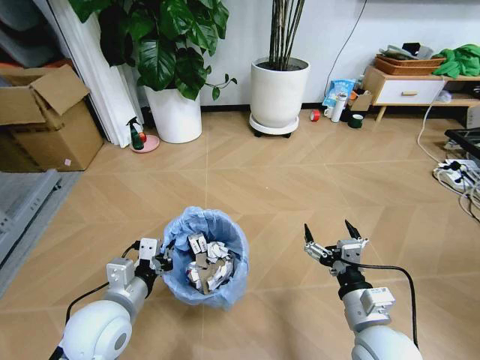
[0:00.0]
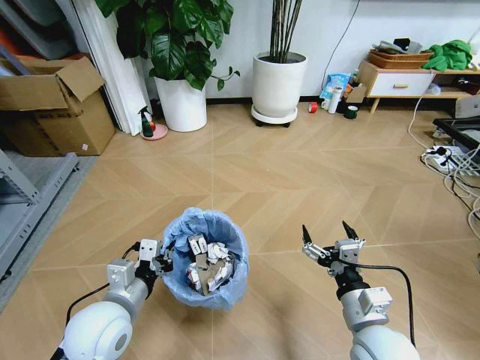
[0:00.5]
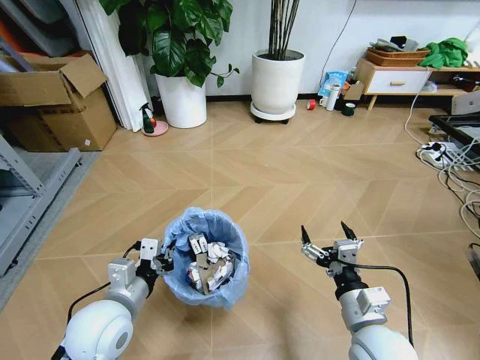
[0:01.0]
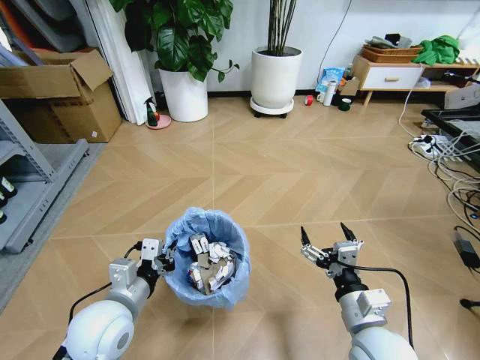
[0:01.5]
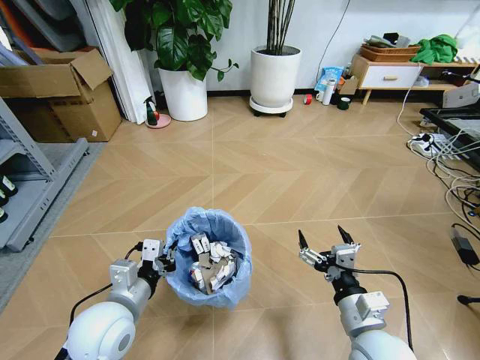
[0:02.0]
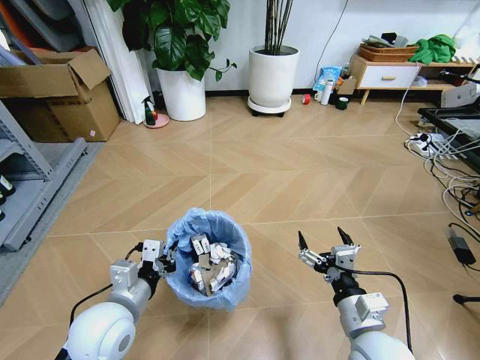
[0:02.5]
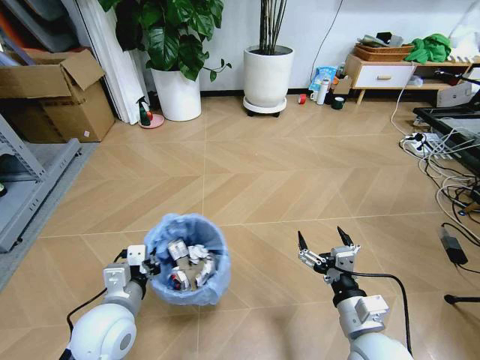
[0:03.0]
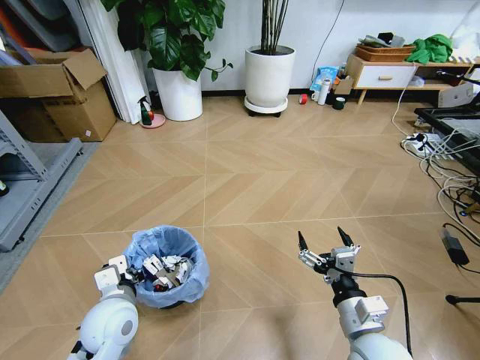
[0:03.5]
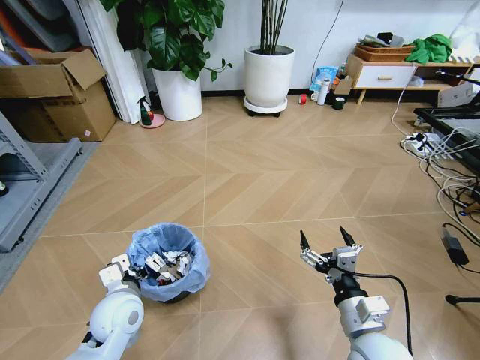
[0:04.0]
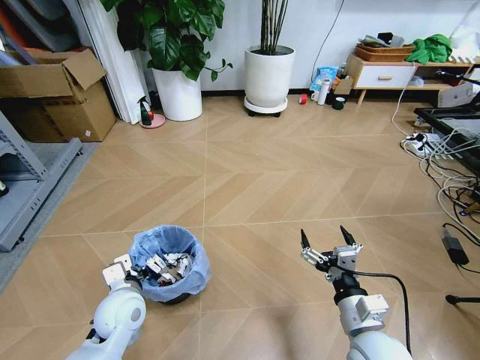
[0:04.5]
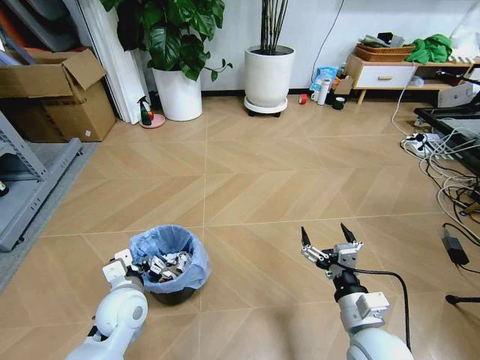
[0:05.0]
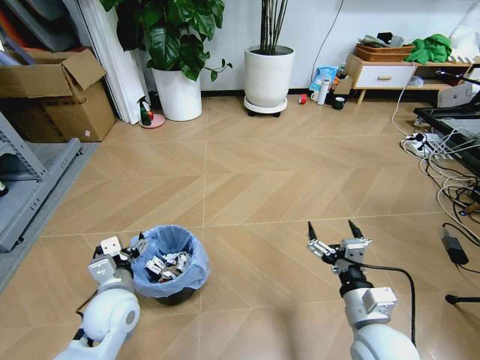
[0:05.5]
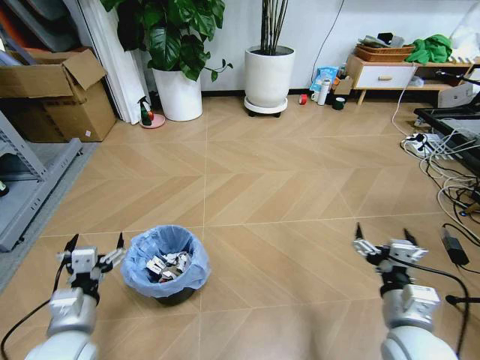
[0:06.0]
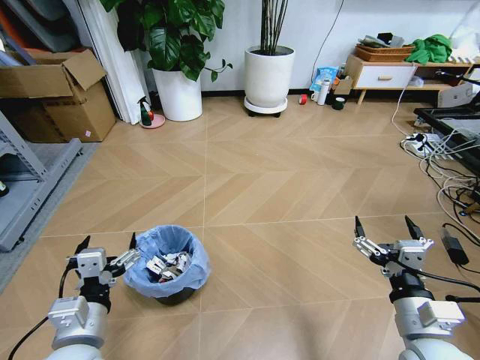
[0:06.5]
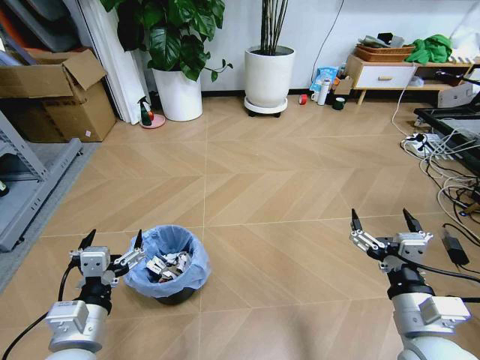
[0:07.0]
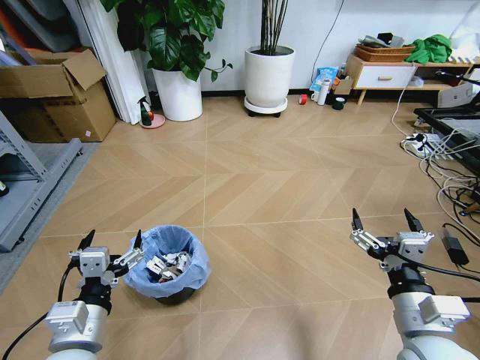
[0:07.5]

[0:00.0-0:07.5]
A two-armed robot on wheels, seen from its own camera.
Task of the whole recording: Pick up the trash bin and place the garbage on the floor into it.
0:02.0 to 0:04.0: The left gripper goes about 5 cm downward.
0:04.0 to 0:05.5: The left gripper opens.
0:05.5 to 0:07.5: The left gripper is displaced backward and upward by approximately 15 cm. Meanwhile the right gripper is displaced upward by about 5 cm.

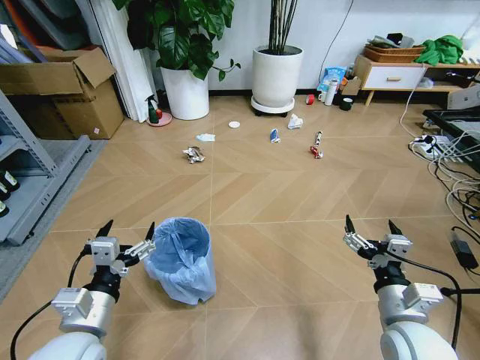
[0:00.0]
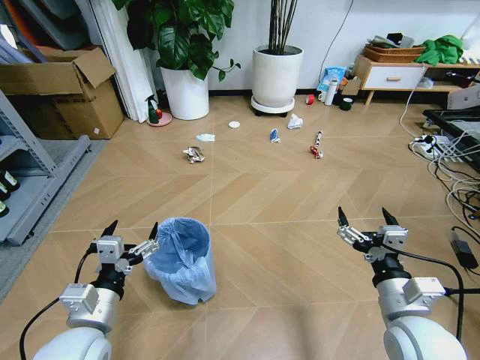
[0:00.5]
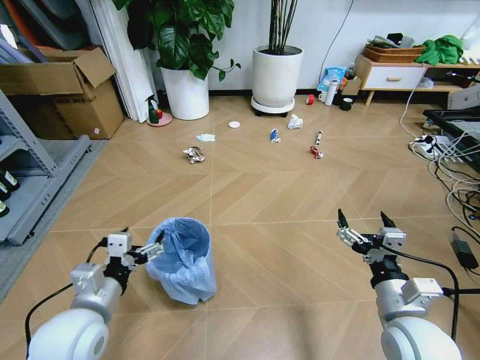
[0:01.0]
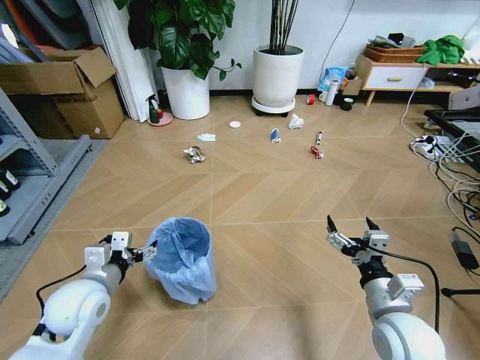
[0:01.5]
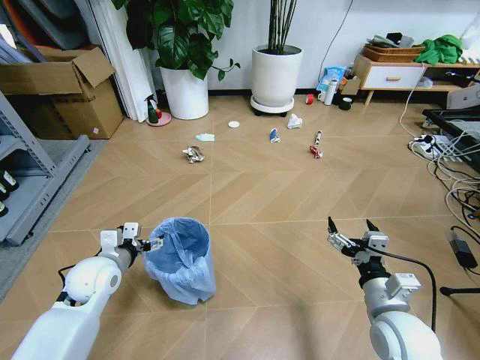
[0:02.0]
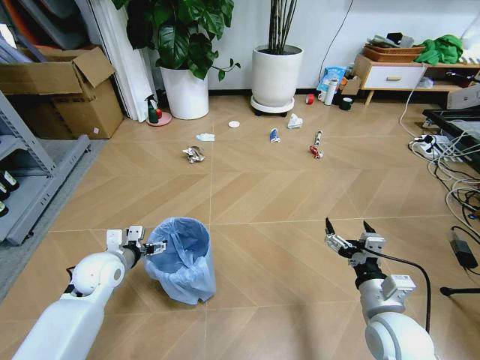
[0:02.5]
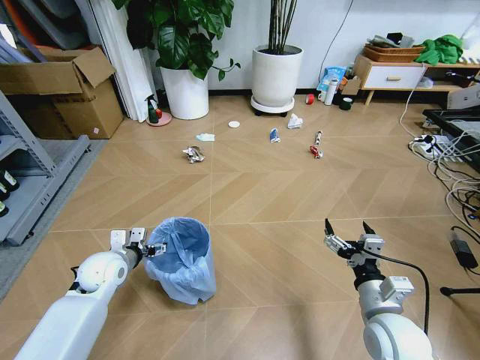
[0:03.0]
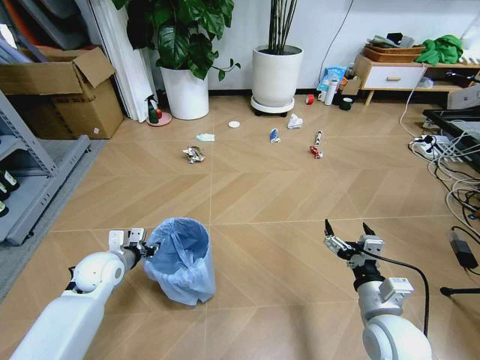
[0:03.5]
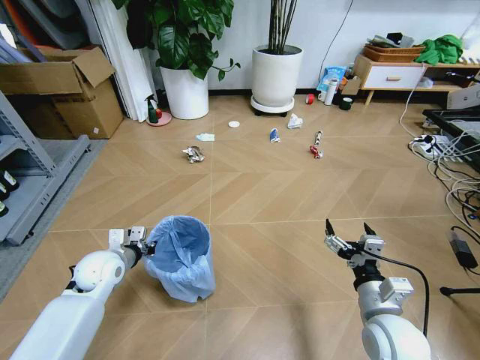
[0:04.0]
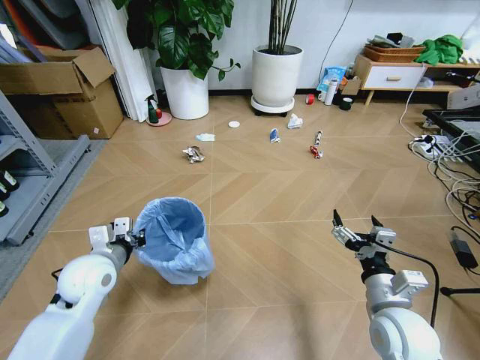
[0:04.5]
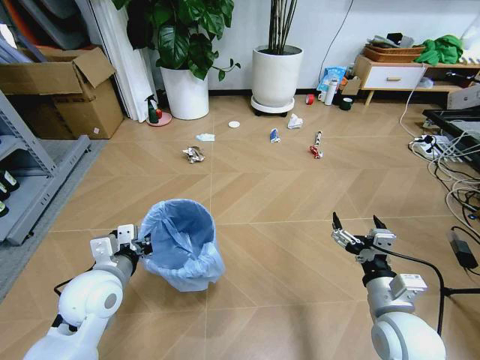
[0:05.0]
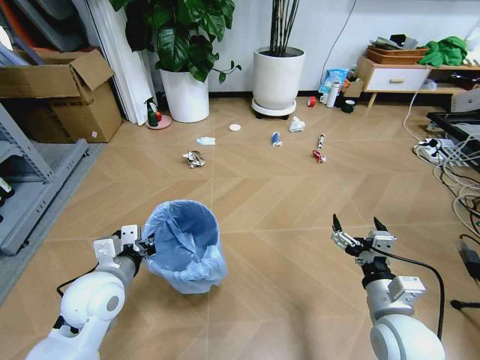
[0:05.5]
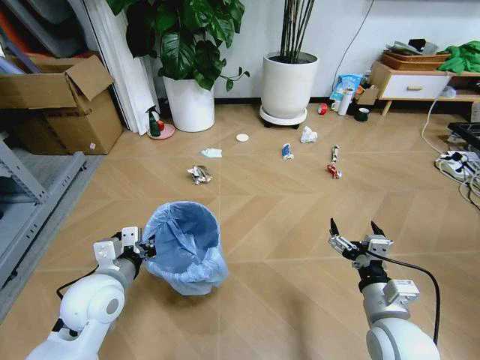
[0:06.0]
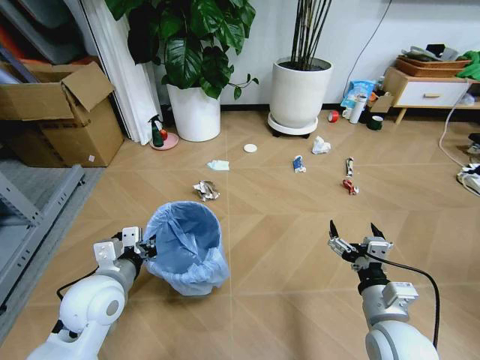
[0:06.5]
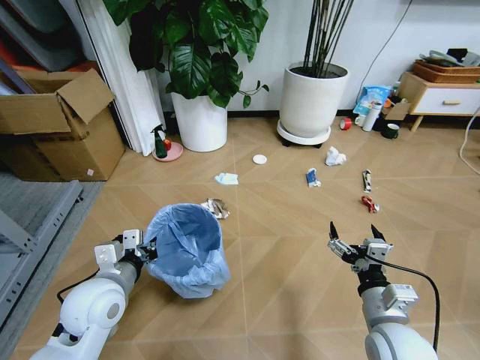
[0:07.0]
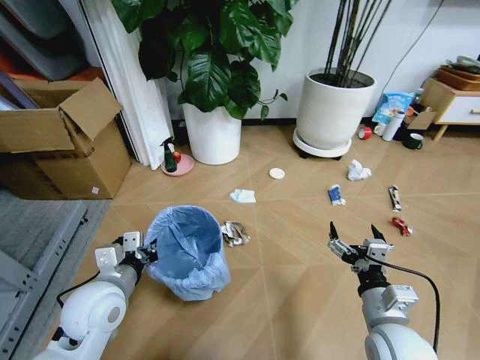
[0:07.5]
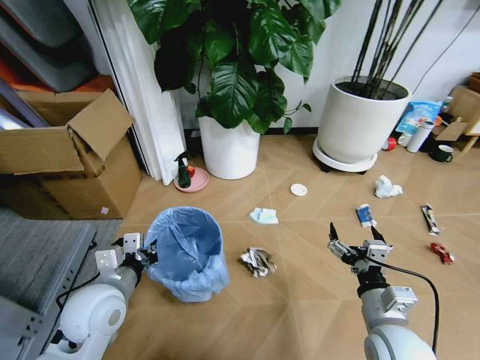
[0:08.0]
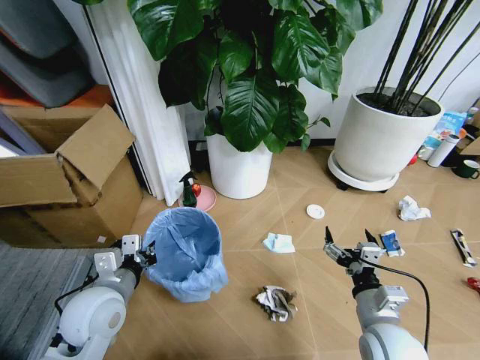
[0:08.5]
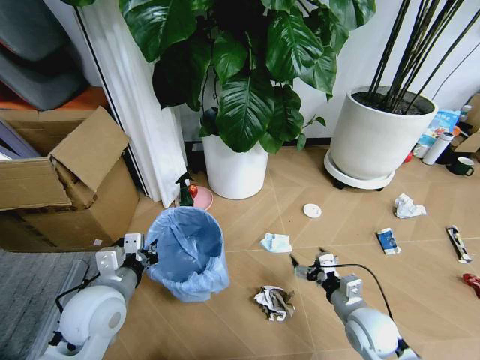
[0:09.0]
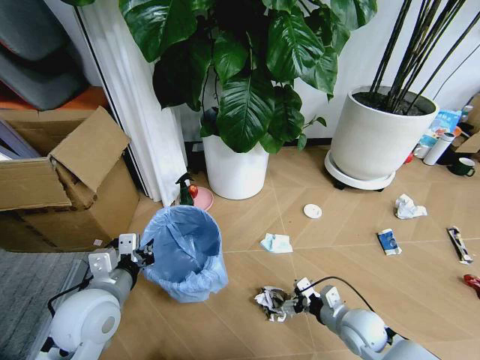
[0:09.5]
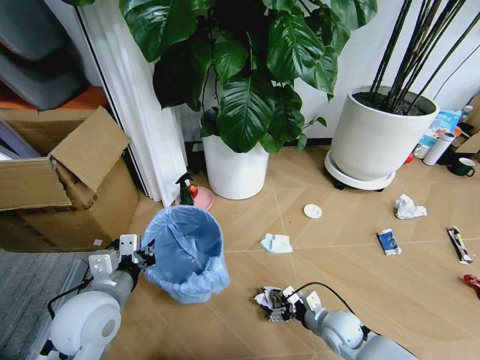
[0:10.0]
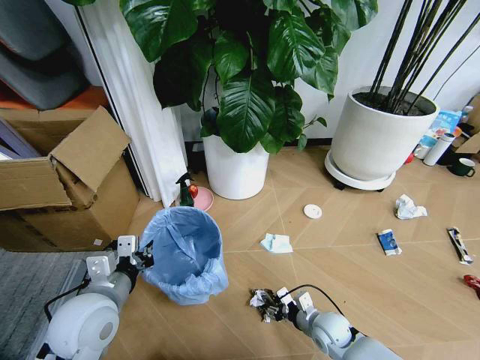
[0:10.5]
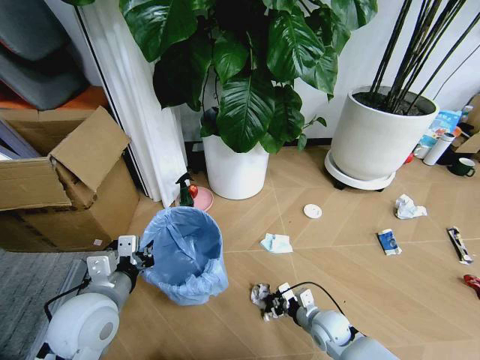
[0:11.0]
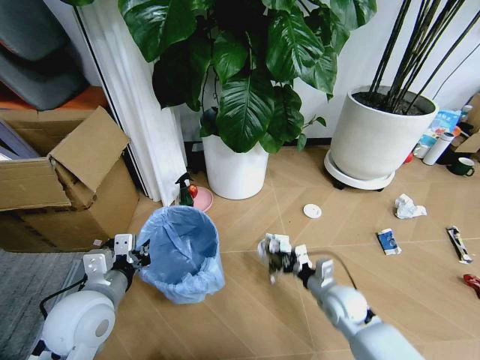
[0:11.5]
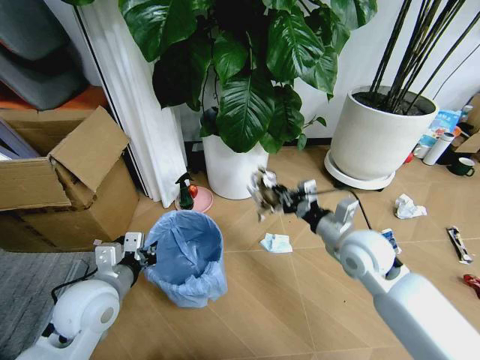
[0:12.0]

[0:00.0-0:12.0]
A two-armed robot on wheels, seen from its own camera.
Task of the whole recording: Pick up the trash bin and place the garbage on the floor into it.
0:02.0 to 0:04.0: The left gripper moves approximately 5 cm, and closes up.
0:04.0 to 0:06.0: The left gripper heads backward, upward and to the right, covering about 15 cm.
0:08.0 to 0:10.0: The right gripper heads downward and forward, covering roughly 20 cm.
0:10.0 to 0:12.0: The right gripper heads upward, covering about 25 cm, and closes up.

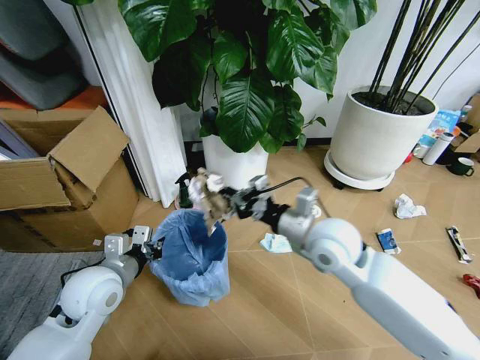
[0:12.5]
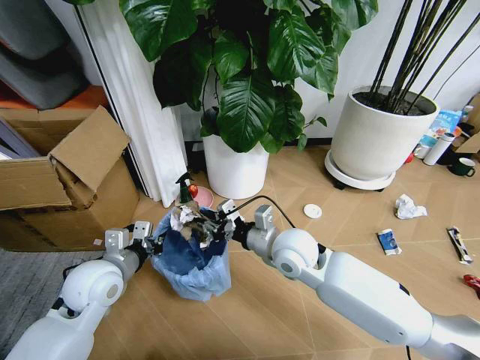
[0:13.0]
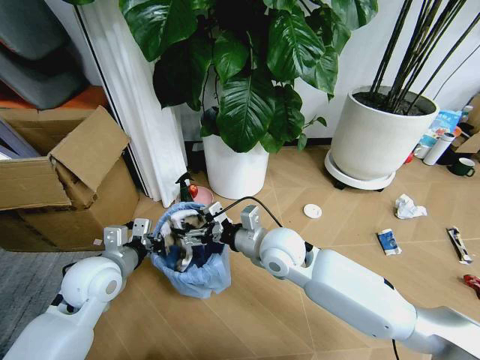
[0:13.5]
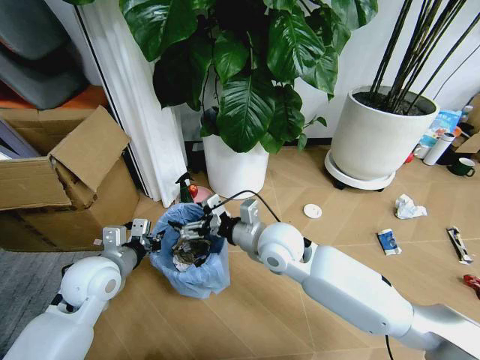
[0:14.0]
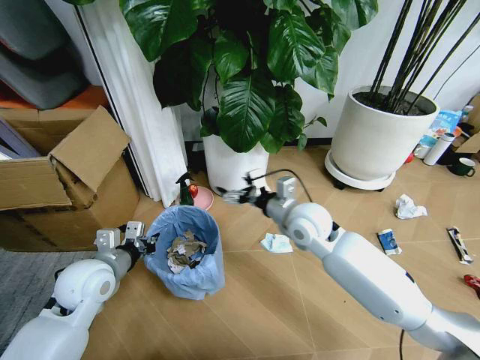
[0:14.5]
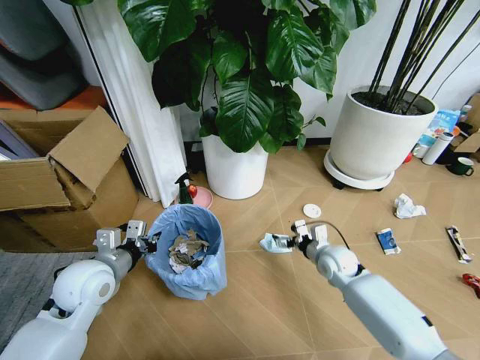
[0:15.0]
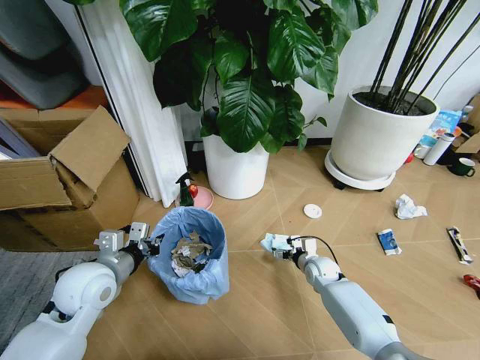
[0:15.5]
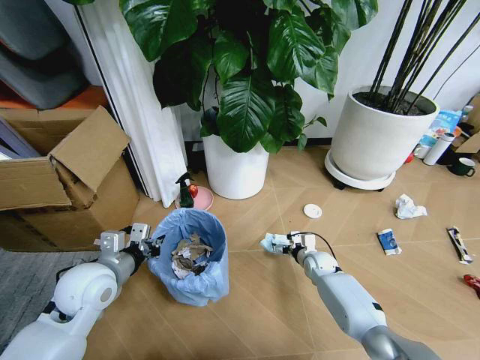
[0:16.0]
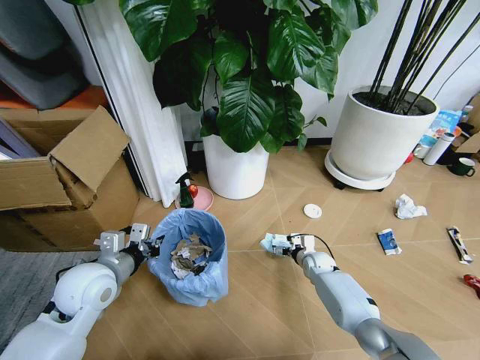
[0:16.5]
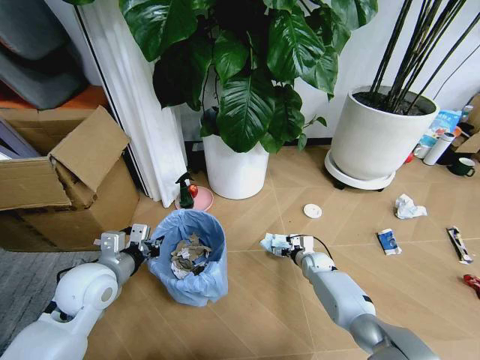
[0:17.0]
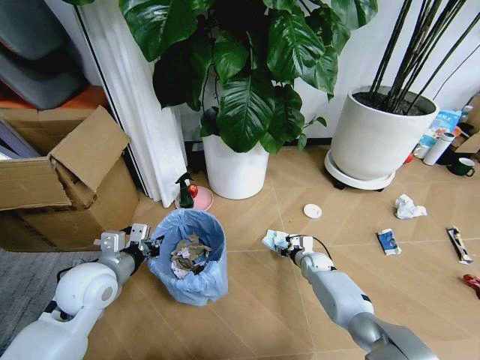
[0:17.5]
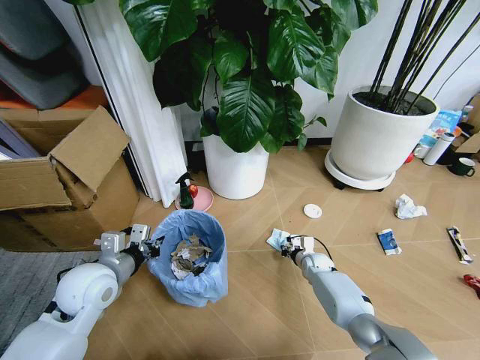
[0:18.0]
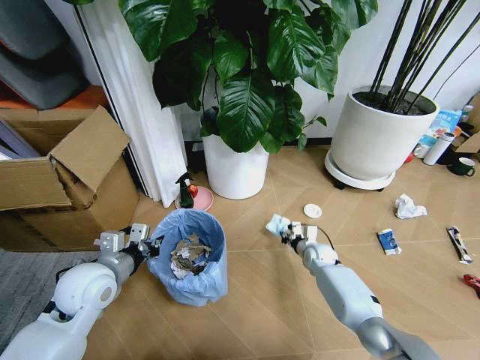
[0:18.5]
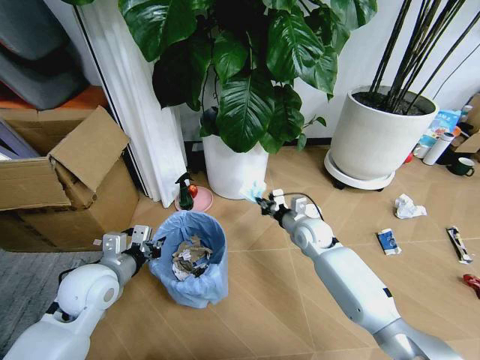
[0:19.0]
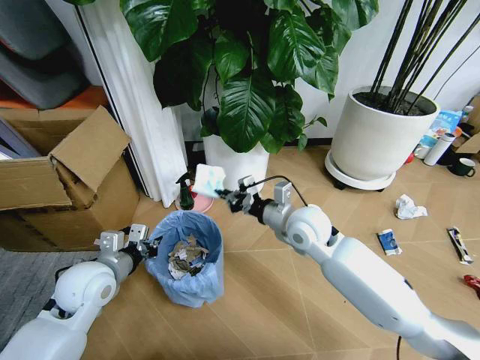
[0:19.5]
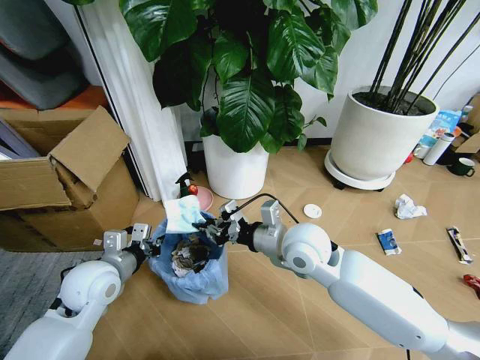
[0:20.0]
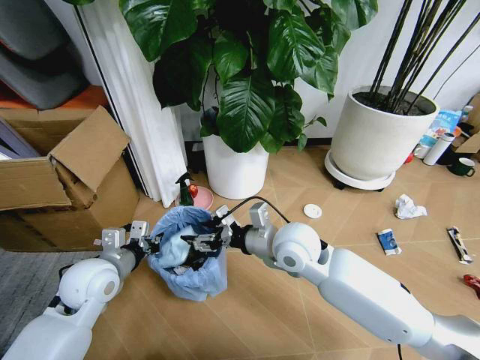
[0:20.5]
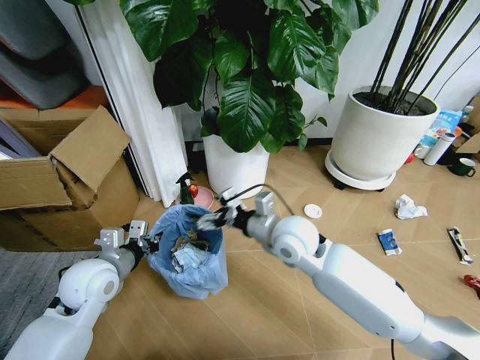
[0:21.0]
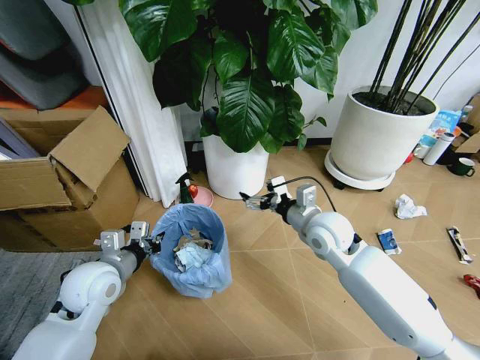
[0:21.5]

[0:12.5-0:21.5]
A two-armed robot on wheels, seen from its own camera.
Task of the whole recording: Pick up the trash bin and place the garbage on the floor into it.
0:12.5 to 0:14.5: The right gripper travels forward by about 5 cm, travels to the left and back again, some 10 cm each way, and opens.
0:14.5 to 0:17.0: The right gripper is displaced downward by approximately 30 cm.
0:17.0 to 0:19.5: The right gripper travels upward by approximately 30 cm, and closes its fingers.
0:19.5 to 0:21.5: The right gripper opens.
